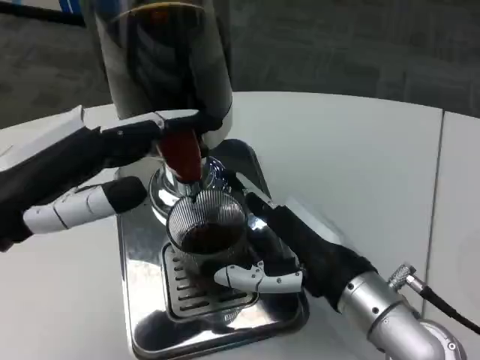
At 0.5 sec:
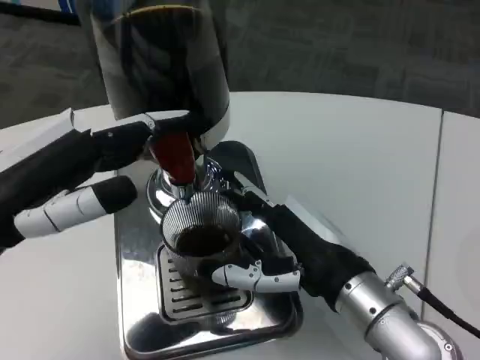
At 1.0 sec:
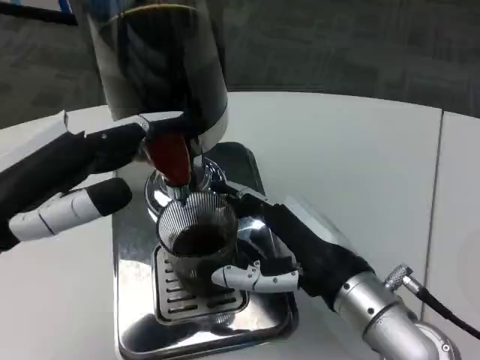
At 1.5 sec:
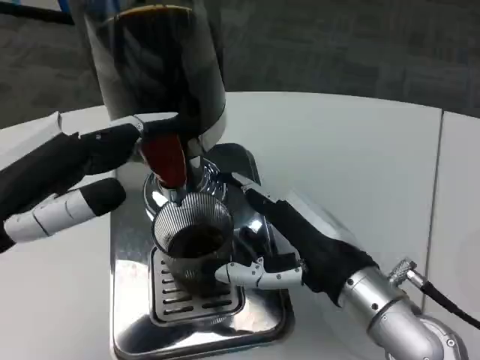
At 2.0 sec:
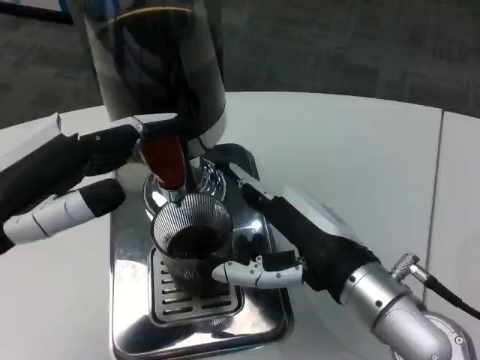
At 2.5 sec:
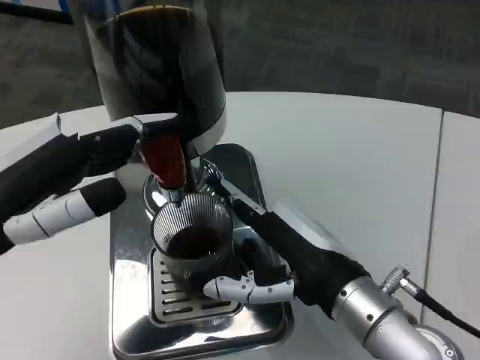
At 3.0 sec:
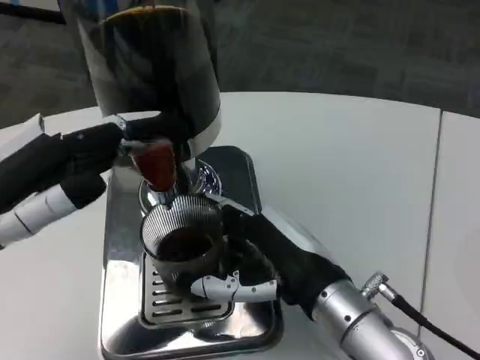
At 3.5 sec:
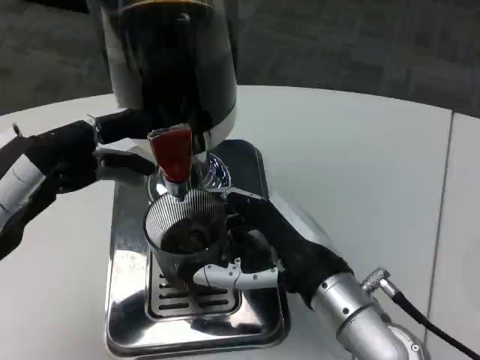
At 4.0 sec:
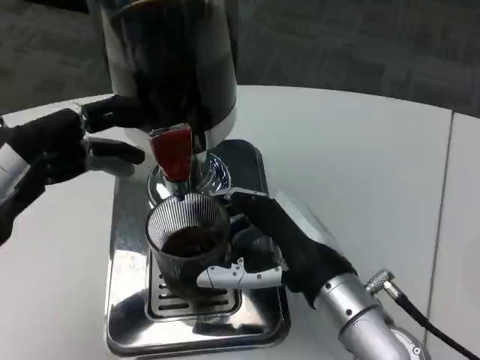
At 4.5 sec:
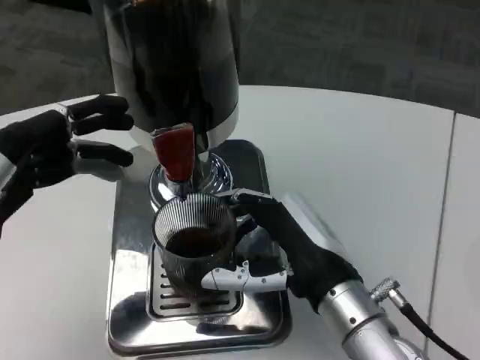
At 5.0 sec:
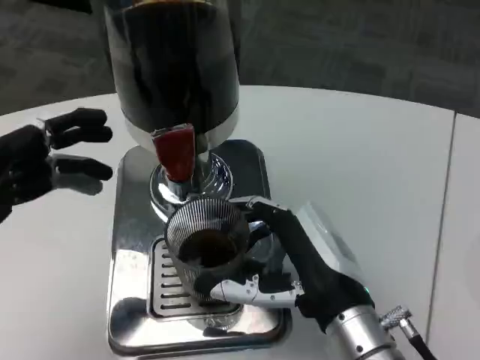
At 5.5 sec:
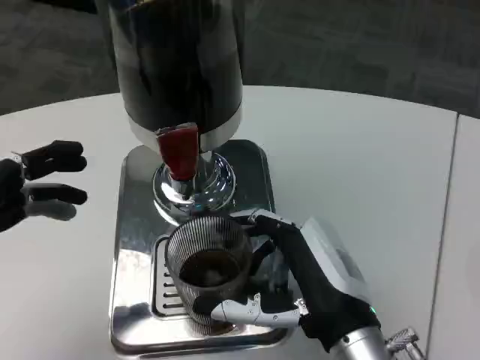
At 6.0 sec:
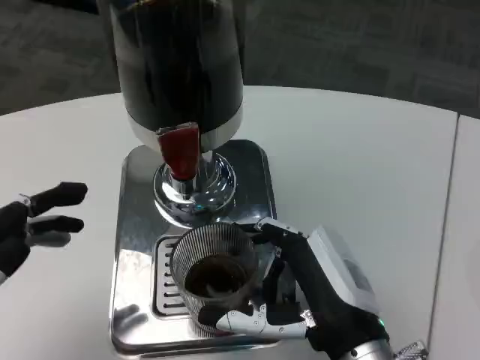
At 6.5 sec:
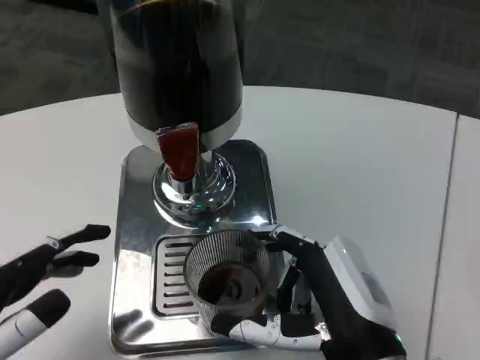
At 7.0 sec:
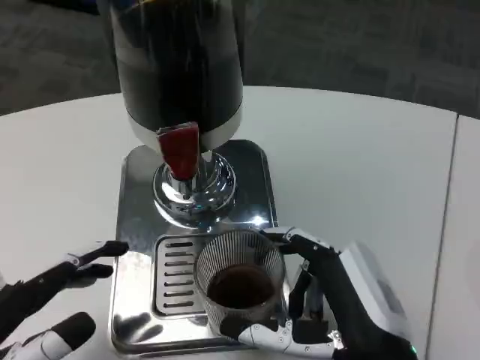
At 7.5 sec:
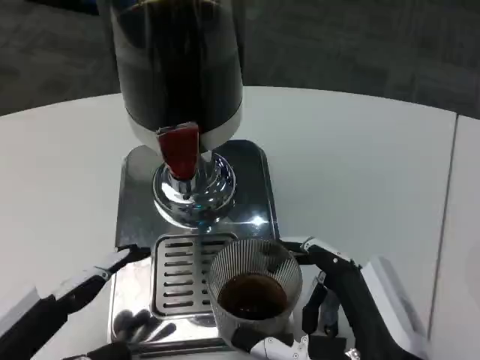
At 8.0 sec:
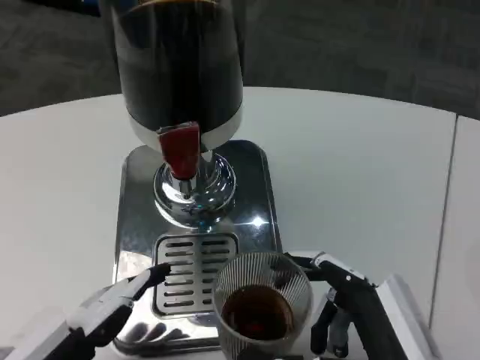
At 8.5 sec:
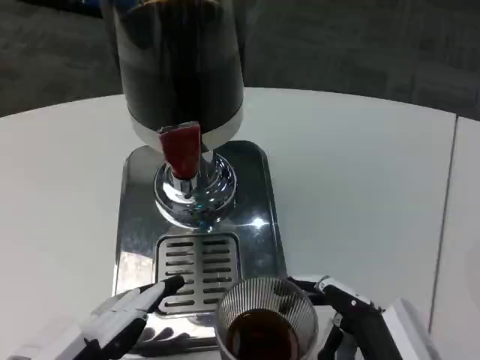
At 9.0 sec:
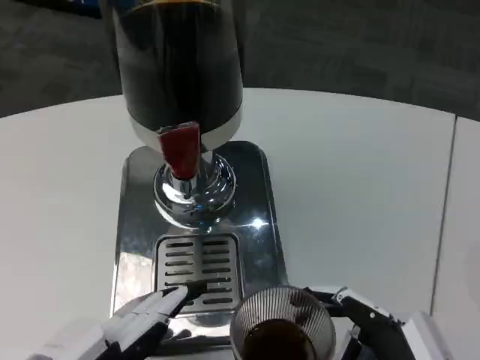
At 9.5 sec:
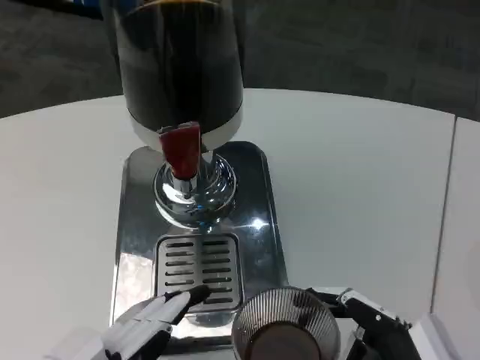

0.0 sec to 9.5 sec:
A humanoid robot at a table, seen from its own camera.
Task of the whole recording: Grasp the cup under the faucet to collect the drink, then remove the cup.
4.0 sec to 5.5 sec: The left hand is displaced backward by approximately 5 cm; the right hand shifts by roughly 5 cm.
5.5 sec to 7.5 sec: The right hand travels backward by about 5 cm; the left hand travels downward by roughly 5 cm.
7.5 sec to 9.5 sec: The right hand travels backward by roughly 5 cm.

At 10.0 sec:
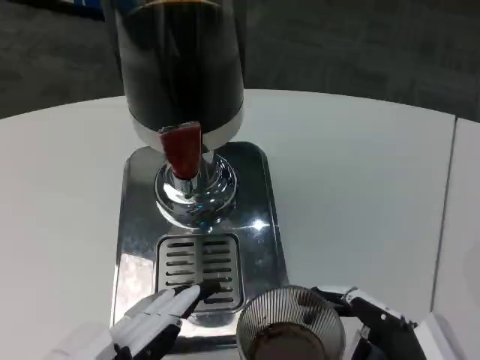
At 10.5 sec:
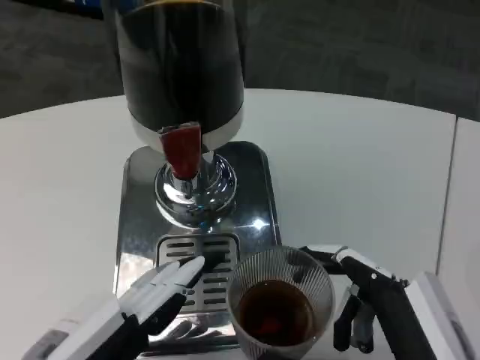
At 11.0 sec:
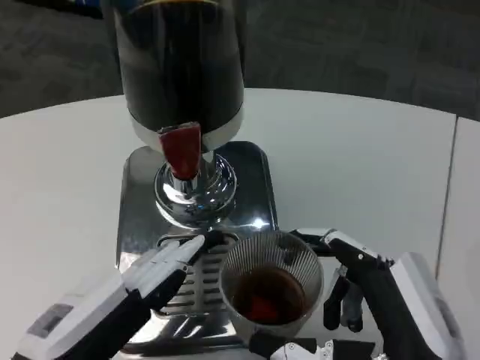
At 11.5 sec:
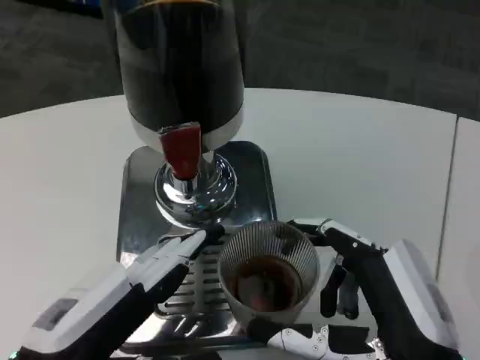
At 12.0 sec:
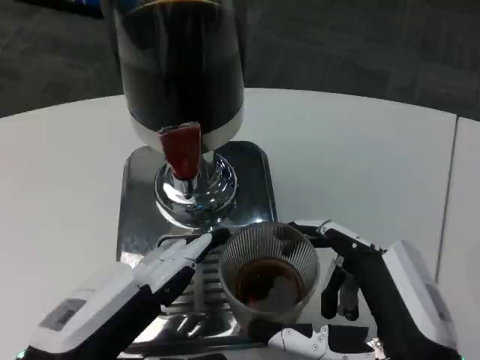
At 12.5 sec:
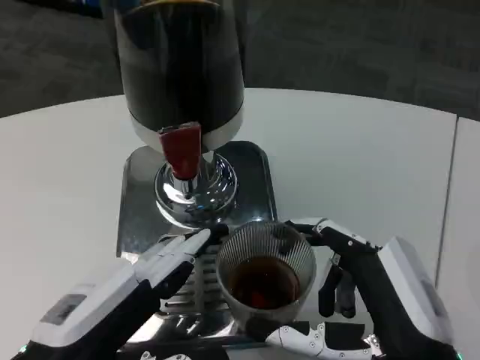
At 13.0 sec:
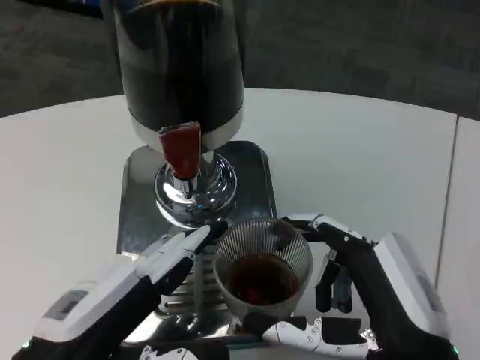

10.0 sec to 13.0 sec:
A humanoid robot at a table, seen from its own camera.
Task of the whole recording: Grasp the cup under the faucet to collect the drink, then remove the cup.
10.0 sec to 11.5 sec: The right hand heads forward, covering about 5 cm.
11.5 sec to 13.0 sec: The two hands keep their place.

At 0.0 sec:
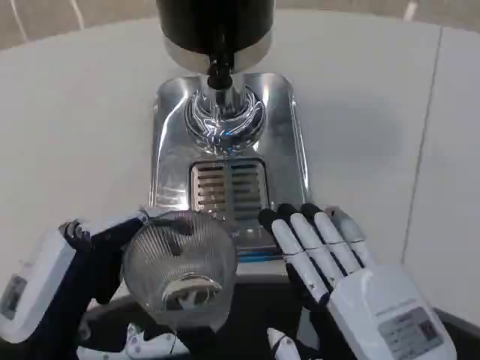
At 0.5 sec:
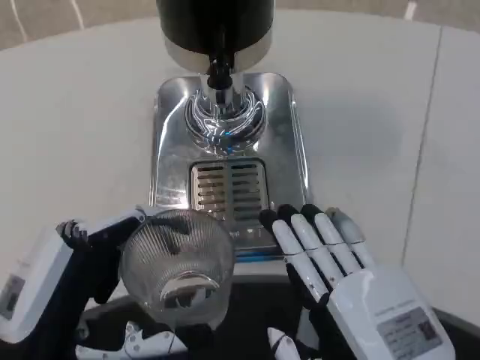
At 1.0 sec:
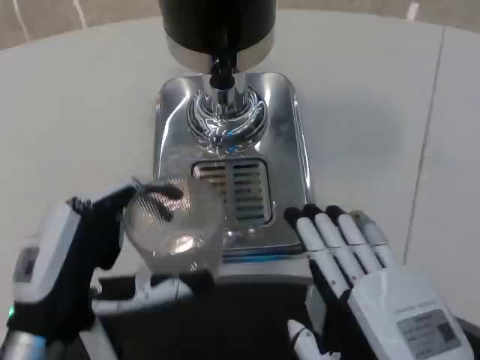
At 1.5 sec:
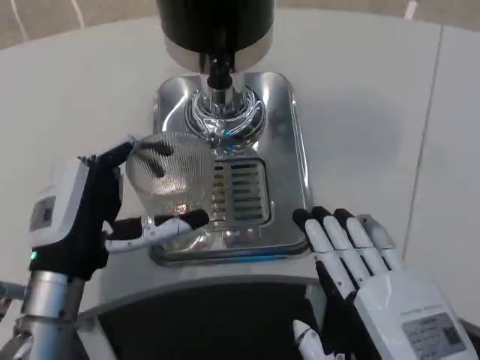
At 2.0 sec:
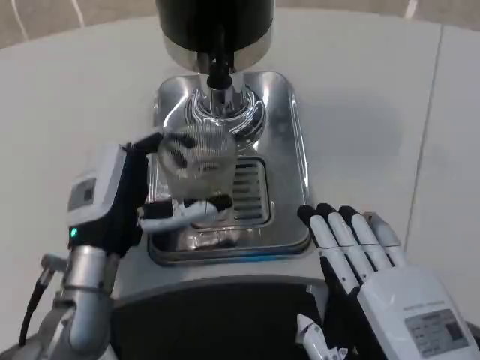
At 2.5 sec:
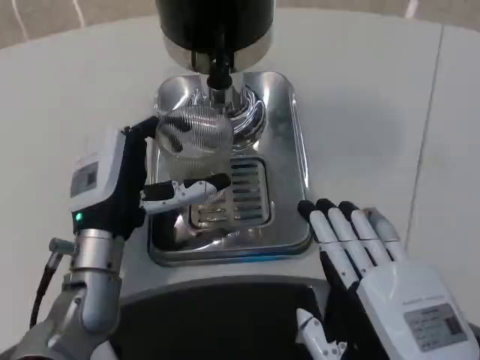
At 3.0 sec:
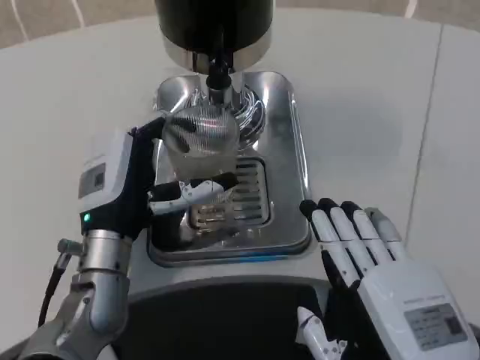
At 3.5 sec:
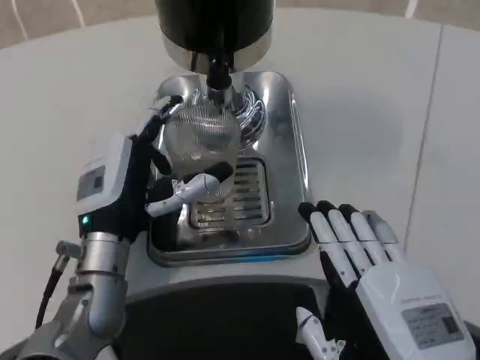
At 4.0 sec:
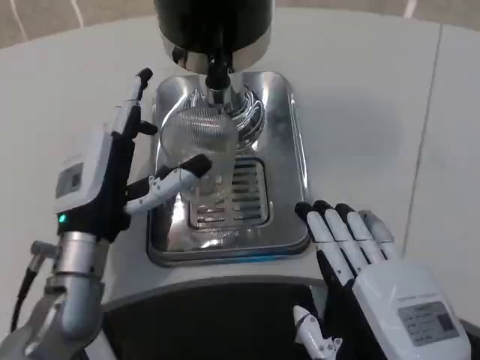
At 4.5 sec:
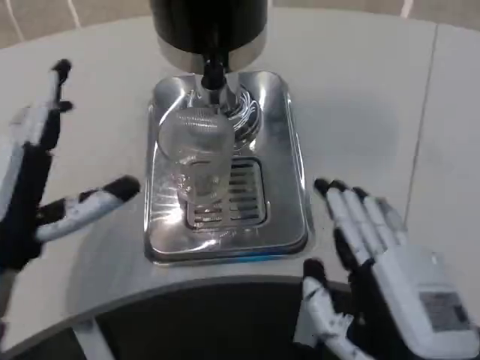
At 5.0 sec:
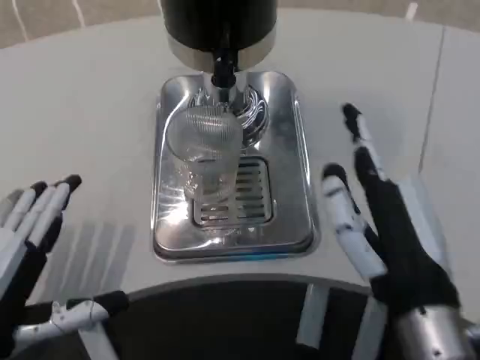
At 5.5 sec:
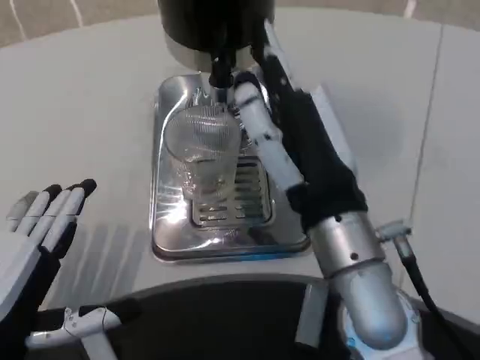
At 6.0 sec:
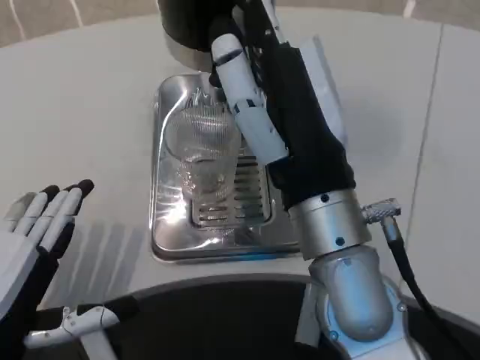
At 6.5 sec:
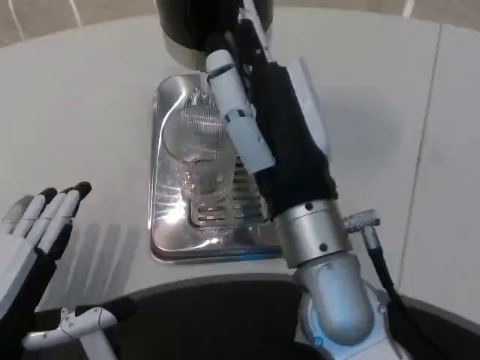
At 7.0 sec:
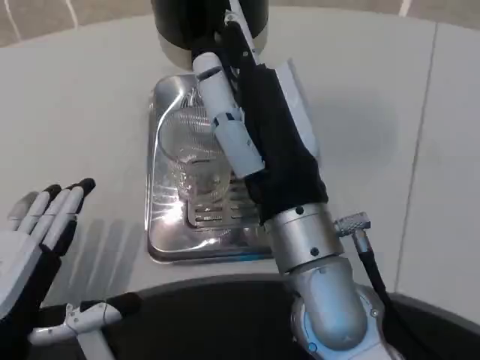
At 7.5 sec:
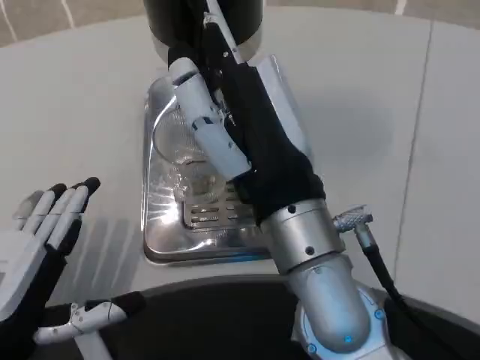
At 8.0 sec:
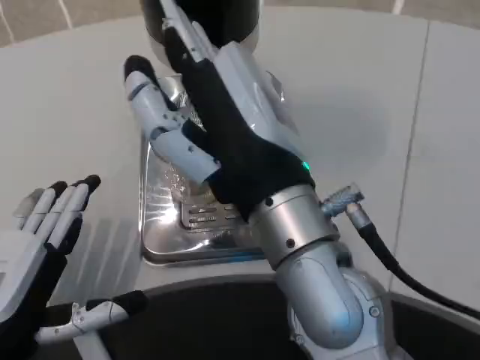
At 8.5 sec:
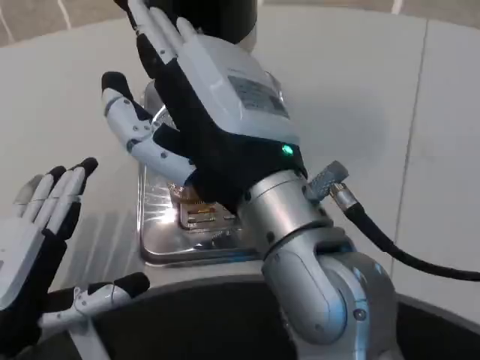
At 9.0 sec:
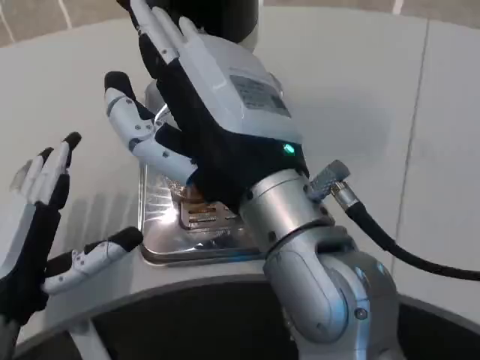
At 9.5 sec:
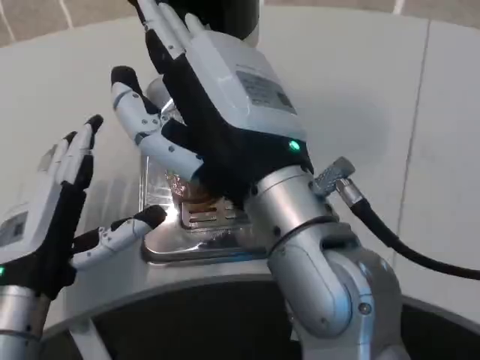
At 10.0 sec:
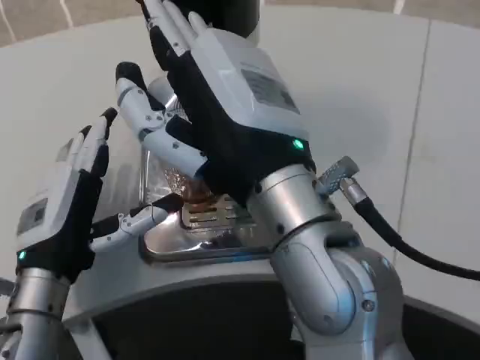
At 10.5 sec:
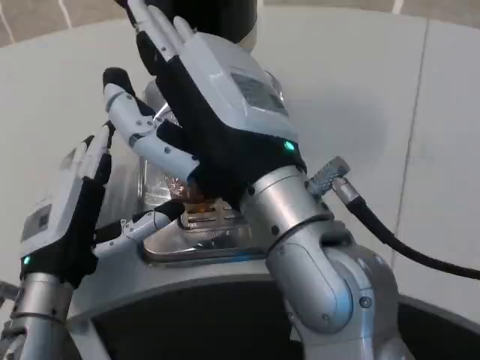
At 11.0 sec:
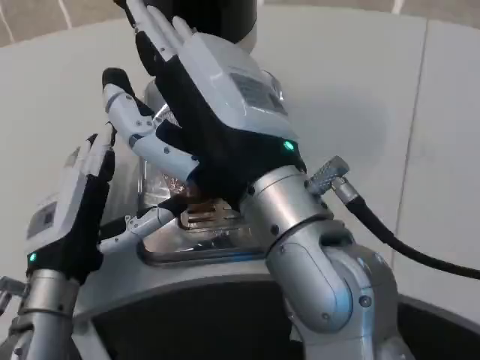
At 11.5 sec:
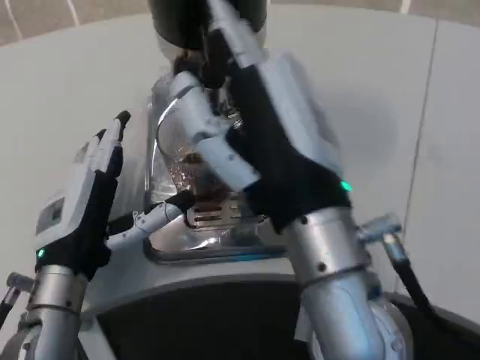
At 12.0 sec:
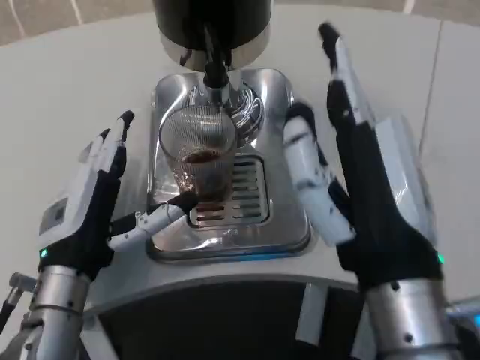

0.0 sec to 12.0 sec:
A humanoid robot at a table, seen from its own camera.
Task of the whole recording: Grasp the cup under the faucet to collect the drink, then remove the cup.
0.0 sec to 2.0 sec: The left hand shifts roughly 15 cm forward.
2.0 sec to 4.0 sec: The hands move only a little.
4.0 sec to 6.0 sec: The right hand travels upward, forward and to the left by approximately 15 cm. Meanwhile the left hand heads backward and to the left, covering approximately 15 cm.
8.0 sec to 10.0 sec: The left hand heads forward, covering approximately 10 cm.
10.0 sec to 12.0 sec: The right hand heads downward and to the right, covering some 10 cm.

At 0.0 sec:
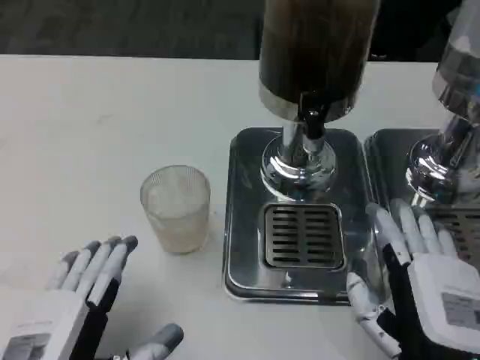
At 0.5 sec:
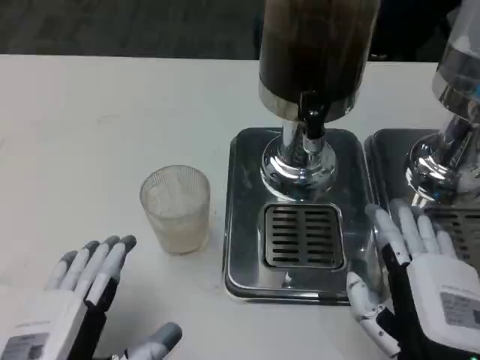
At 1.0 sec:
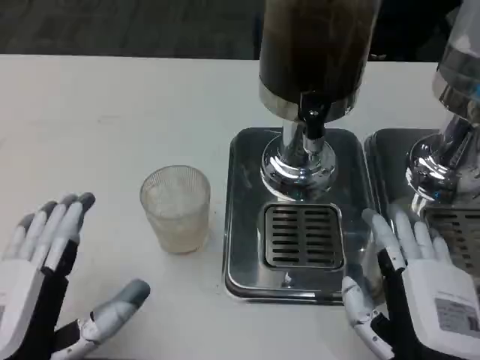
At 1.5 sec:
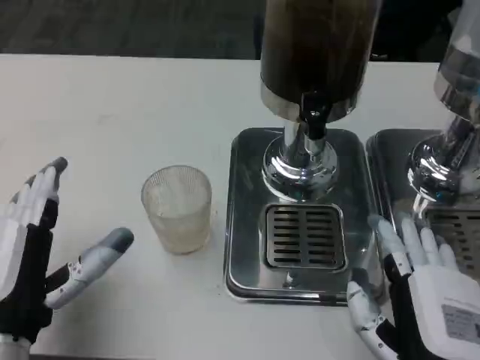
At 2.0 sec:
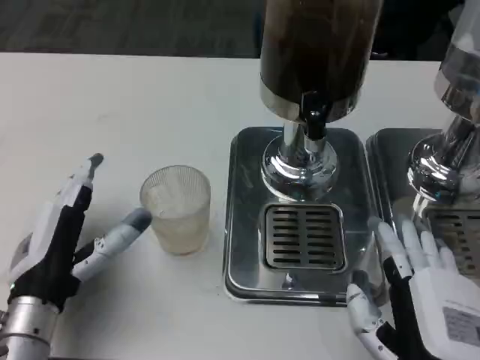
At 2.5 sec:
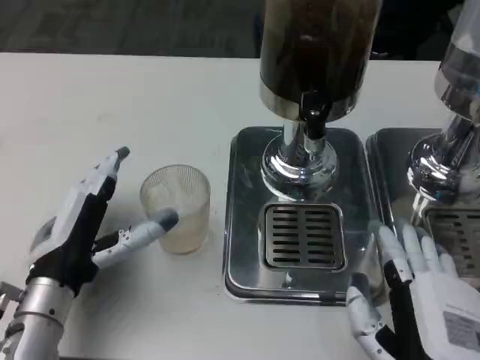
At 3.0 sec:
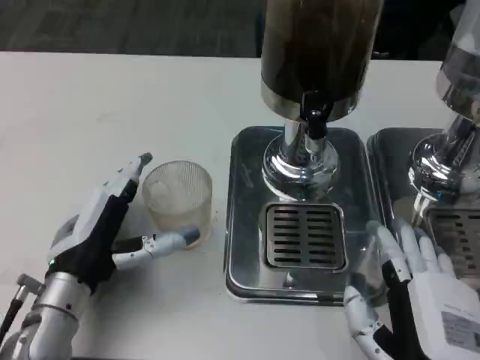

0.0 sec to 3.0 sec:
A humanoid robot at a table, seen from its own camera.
Task of the whole recording: Grasp the cup under the faucet to collect the drink, then remove the cup.
0.0 sec to 1.5 sec: The left hand shifts roughly 5 cm forward.
1.5 sec to 3.0 sec: The left hand is displaced forward by roughly 5 cm.
